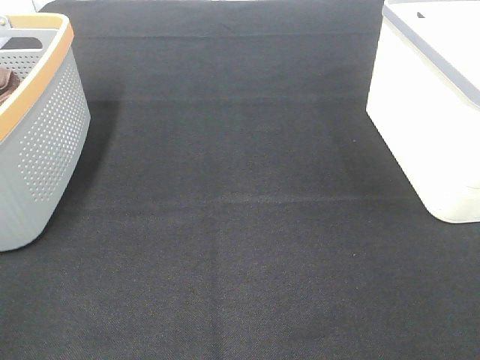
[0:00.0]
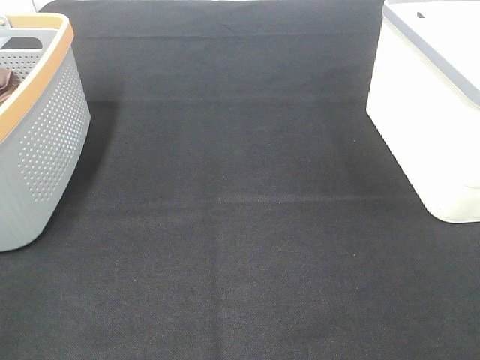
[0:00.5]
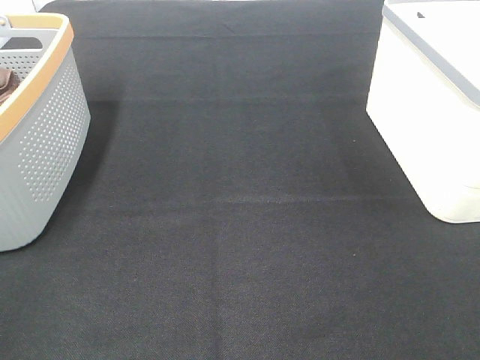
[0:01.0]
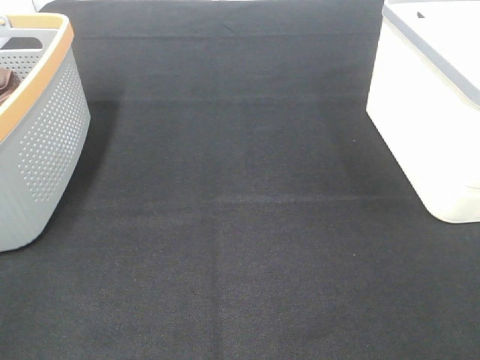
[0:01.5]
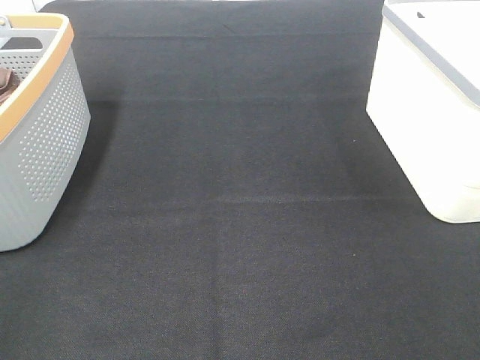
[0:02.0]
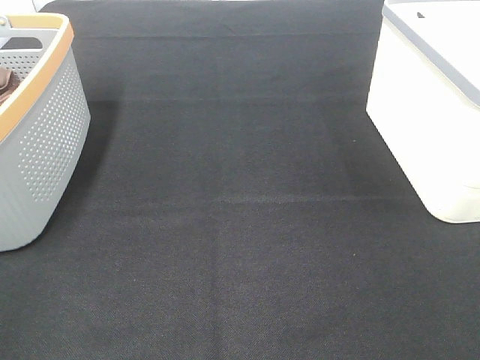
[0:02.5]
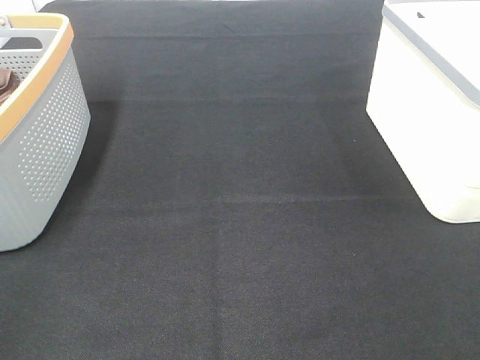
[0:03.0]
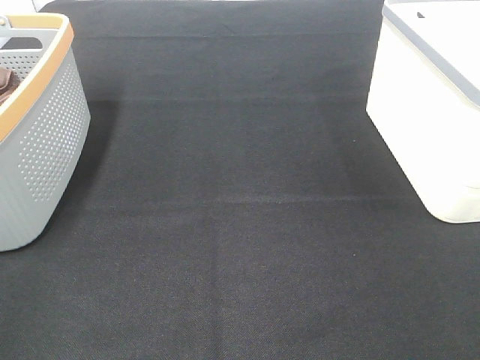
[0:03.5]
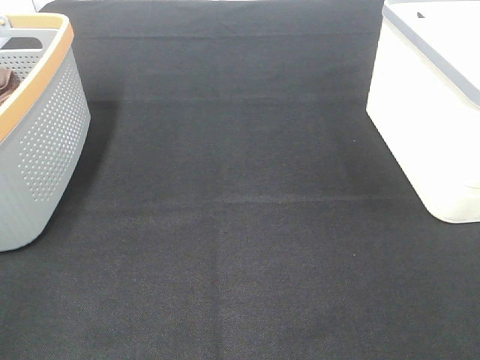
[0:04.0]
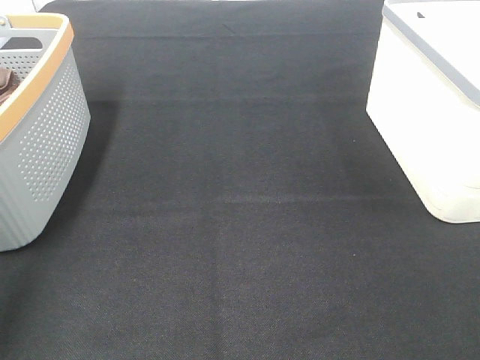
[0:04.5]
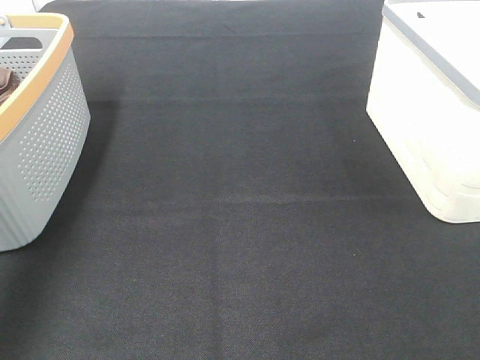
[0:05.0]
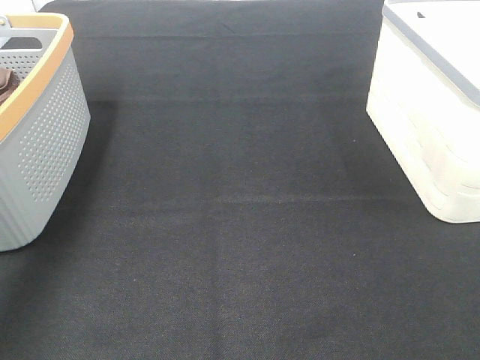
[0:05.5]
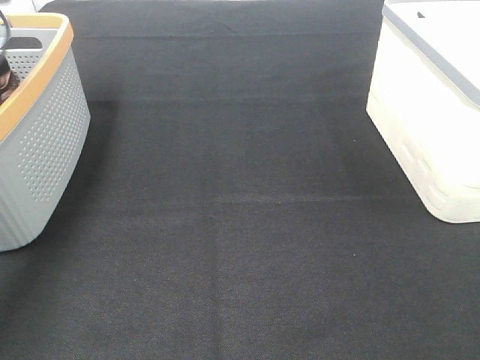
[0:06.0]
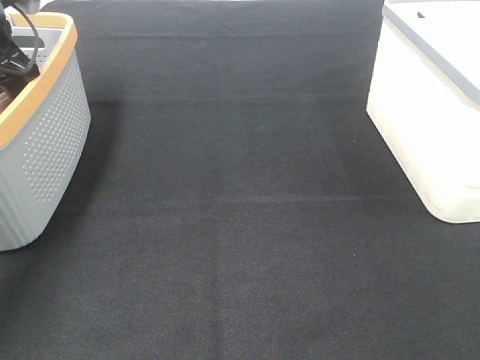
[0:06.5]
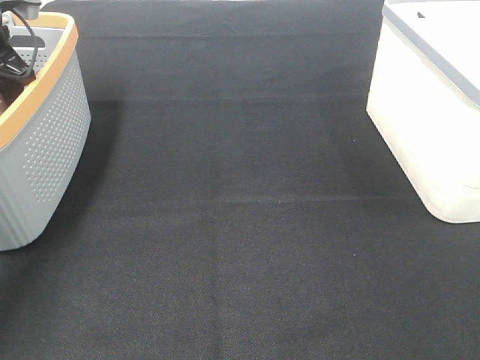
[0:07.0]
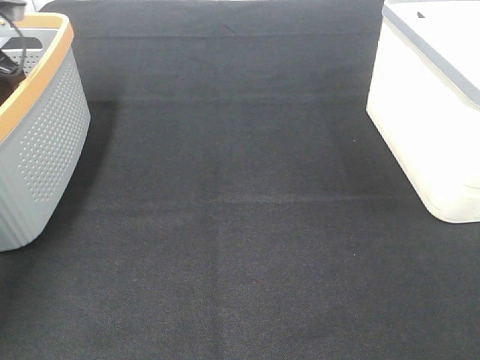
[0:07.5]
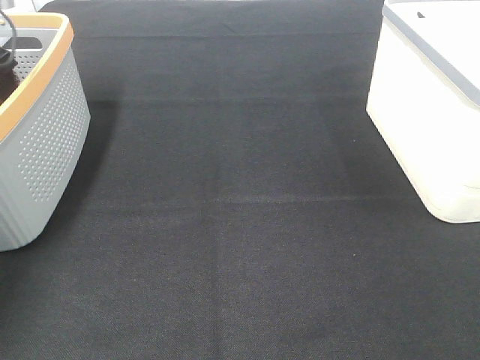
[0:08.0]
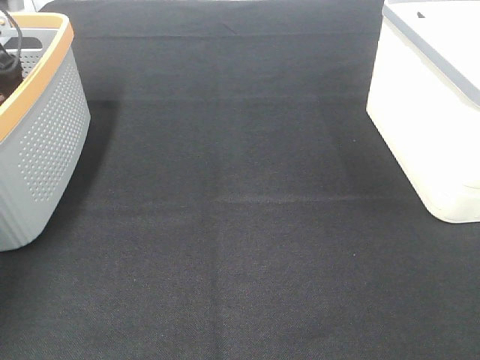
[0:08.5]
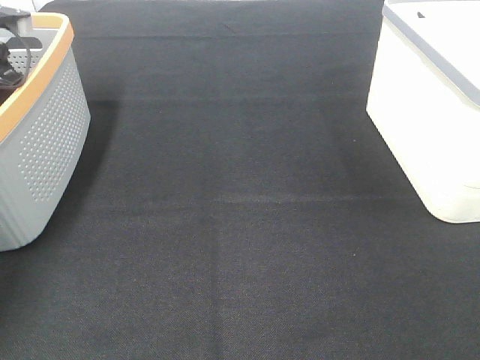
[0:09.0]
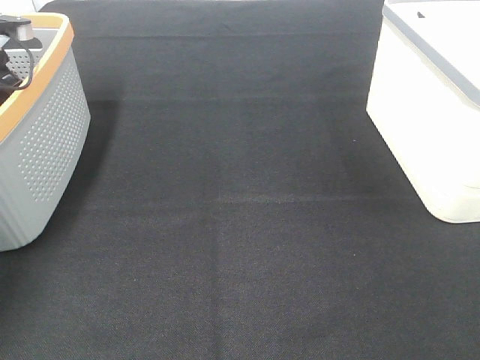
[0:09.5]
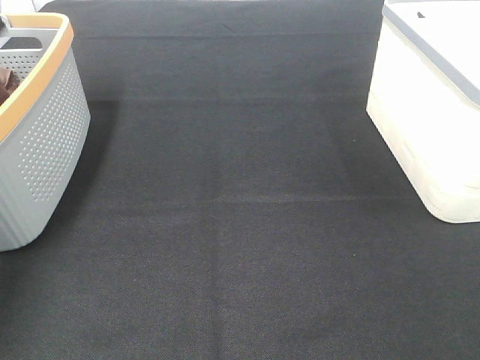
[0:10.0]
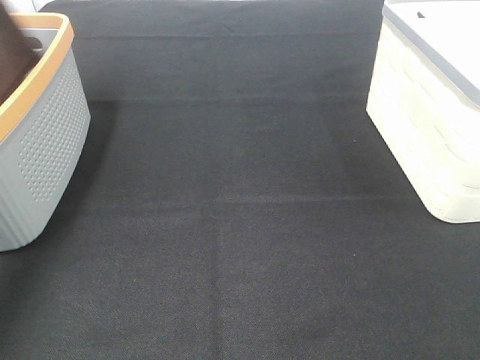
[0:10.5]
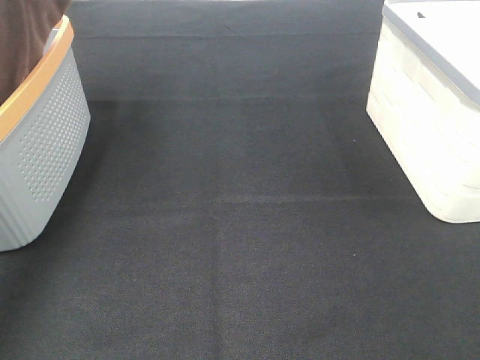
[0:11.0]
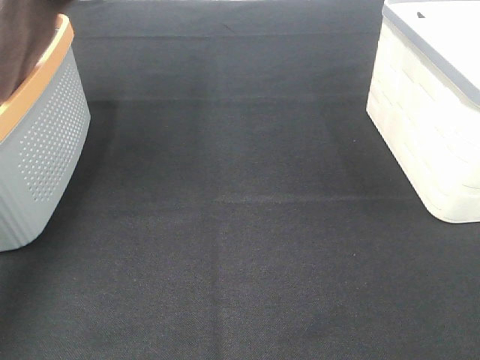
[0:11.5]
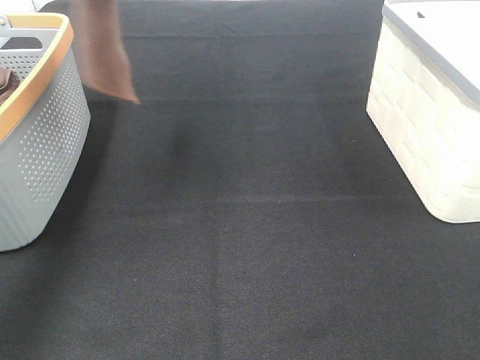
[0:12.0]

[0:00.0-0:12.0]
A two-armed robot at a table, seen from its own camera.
Task of the whole recording: Remove the towel and place it.
0:00.0 to 0:02.0: Neither gripper changes place.
0:04.0 to 0:06.0: The left gripper shifts approximately 40 cm forward.
0:10.0 to 0:12.0: The left gripper shifts approximately 30 cm upward, to the right and backward.

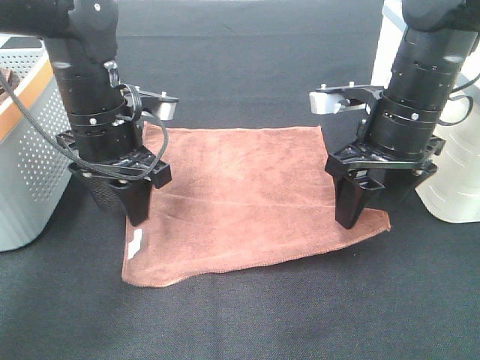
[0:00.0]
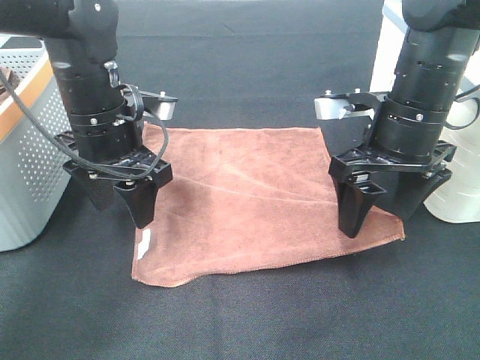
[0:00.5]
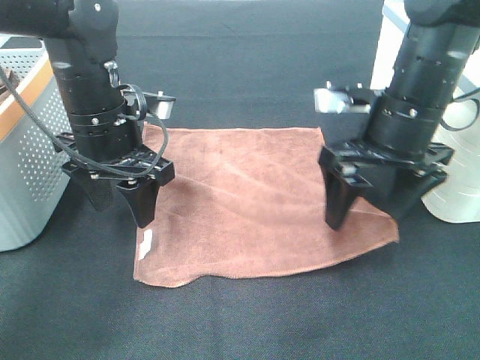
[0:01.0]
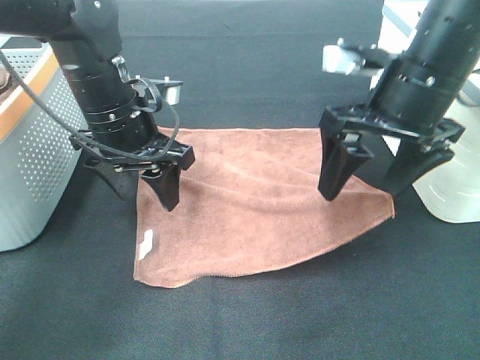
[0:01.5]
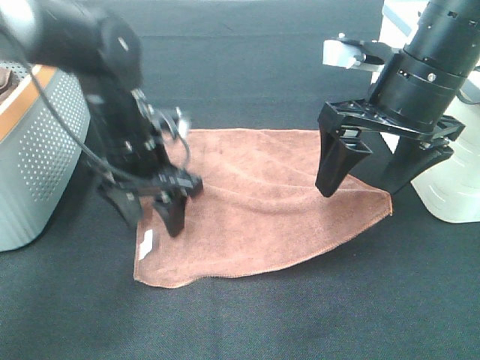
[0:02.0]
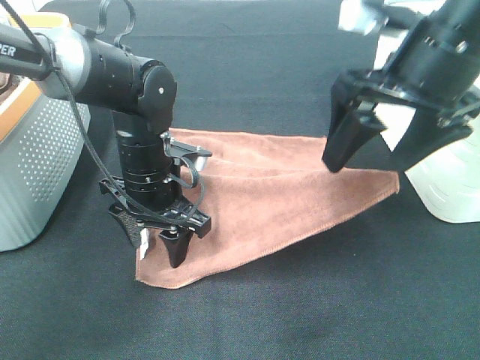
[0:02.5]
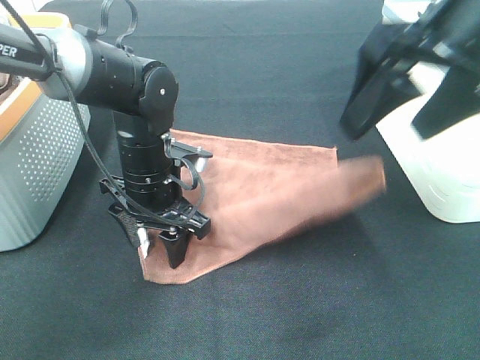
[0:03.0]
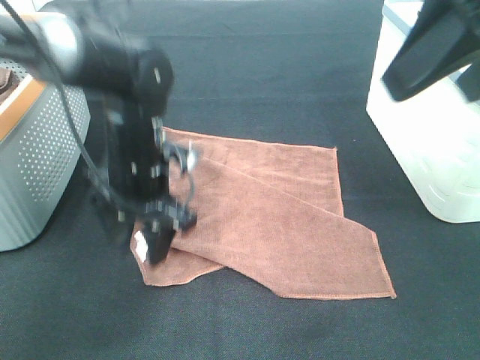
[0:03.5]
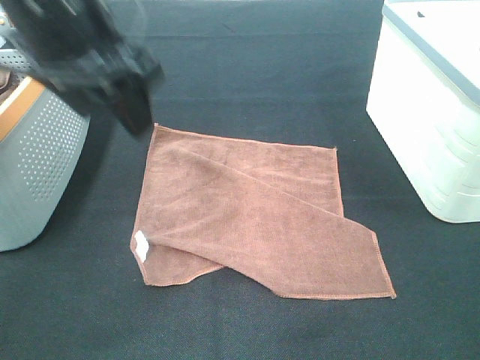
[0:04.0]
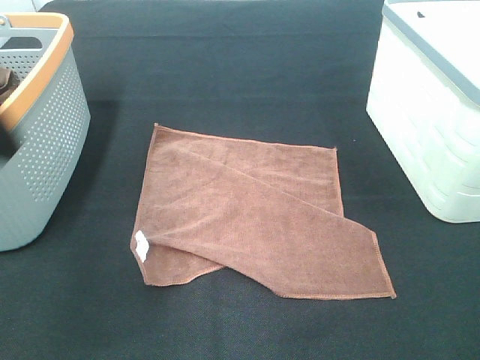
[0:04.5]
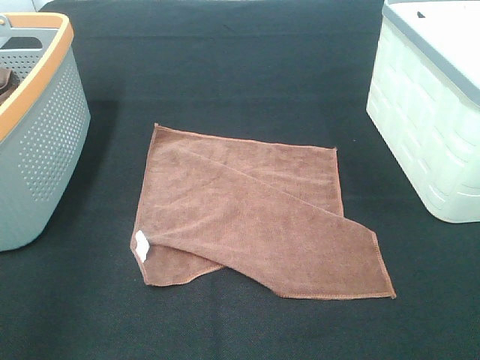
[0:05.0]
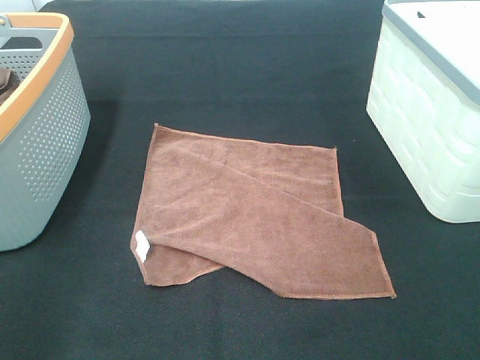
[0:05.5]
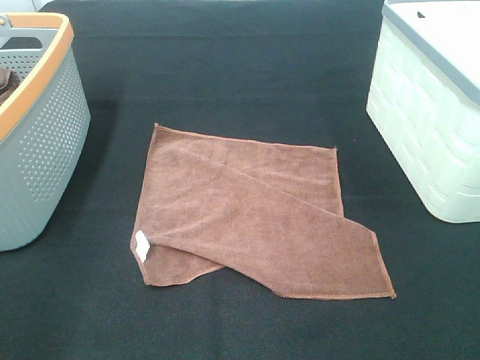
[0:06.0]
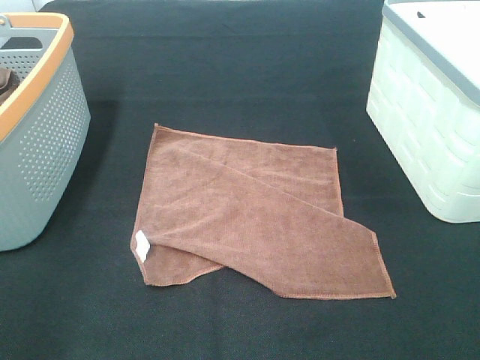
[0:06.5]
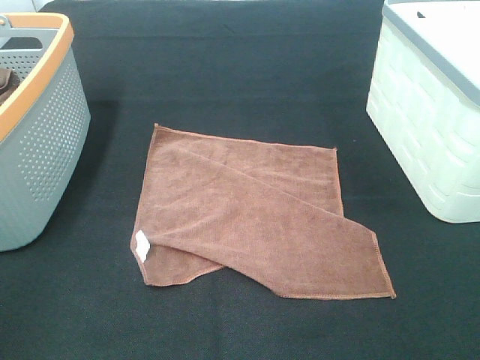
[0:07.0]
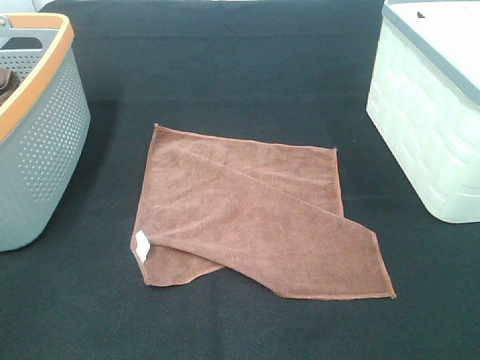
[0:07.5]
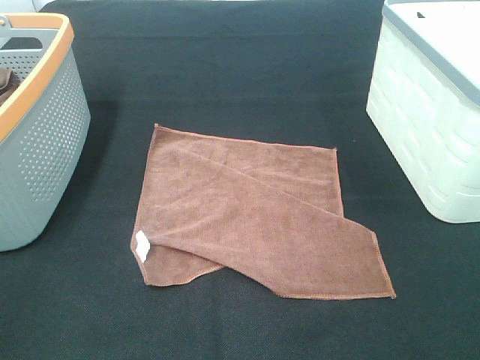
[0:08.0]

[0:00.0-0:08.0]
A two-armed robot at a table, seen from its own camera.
Task of the whole recording: Remove the towel and place it.
0:00.0 to 0:02.0: The left gripper changes place by approximately 5 cm, while the right gripper shifts by roughly 5 cm.
0:02.0 to 0:04.0: The left gripper shifts about 20 cm upward; the right gripper heads upward and backward, covering roughly 25 cm.
0:04.0 to 0:06.0: The right gripper goes approximately 15 cm downward and backward. The left gripper travels backward and to the left by some 30 cm.

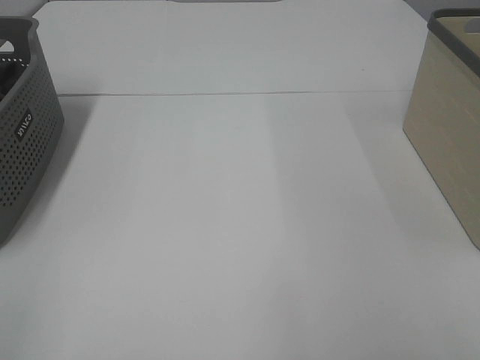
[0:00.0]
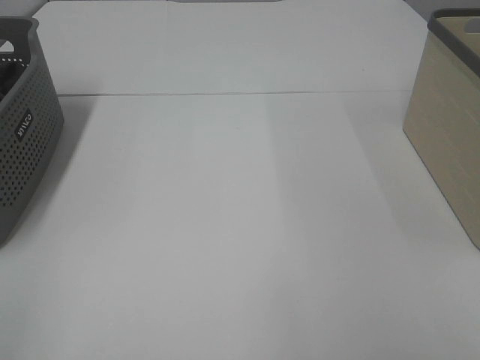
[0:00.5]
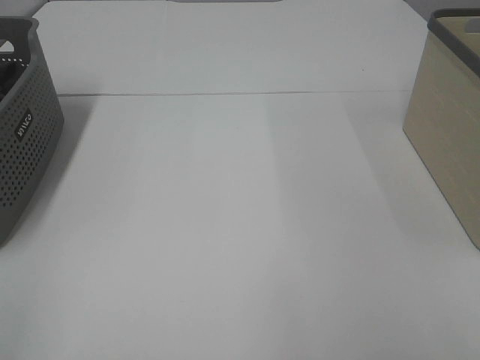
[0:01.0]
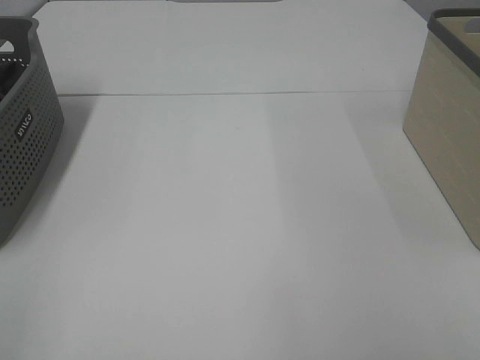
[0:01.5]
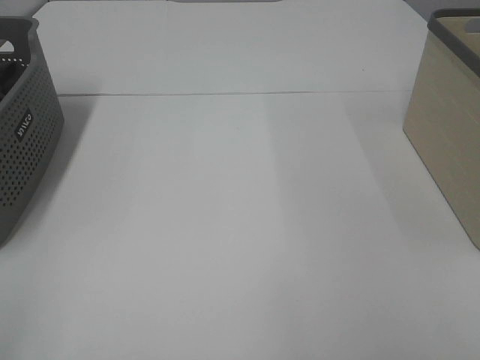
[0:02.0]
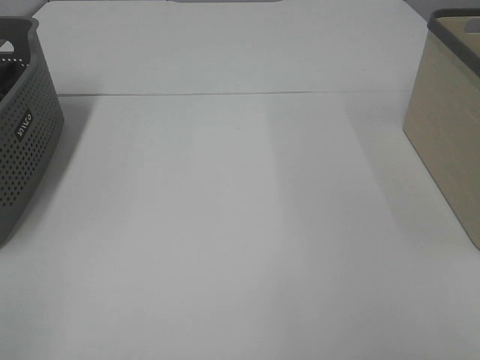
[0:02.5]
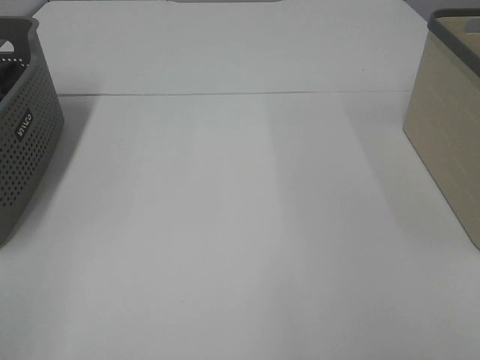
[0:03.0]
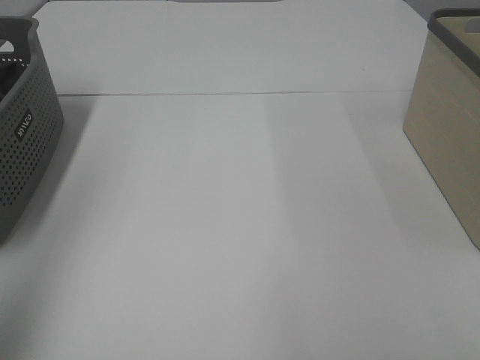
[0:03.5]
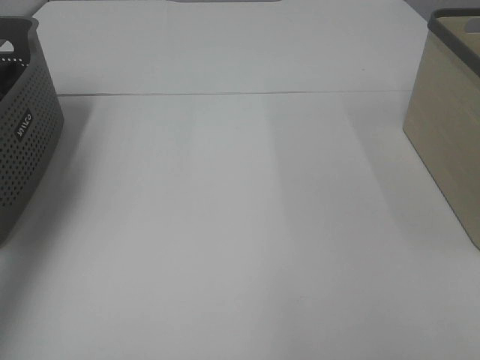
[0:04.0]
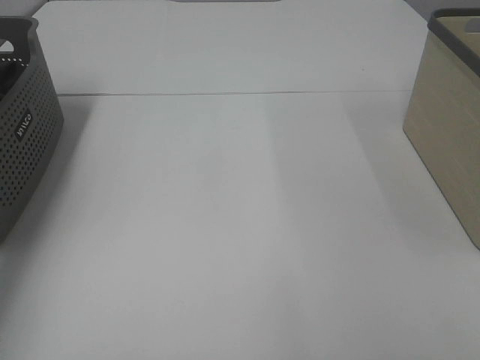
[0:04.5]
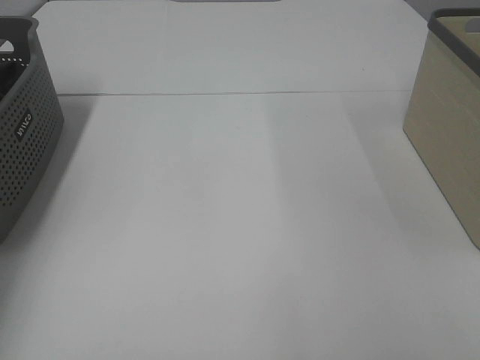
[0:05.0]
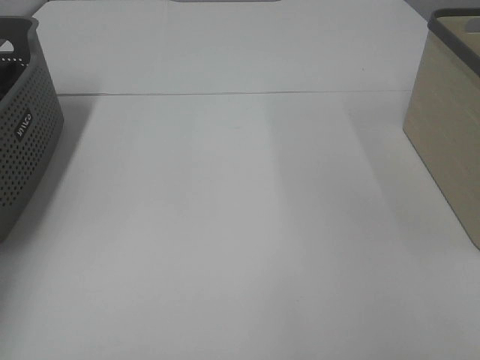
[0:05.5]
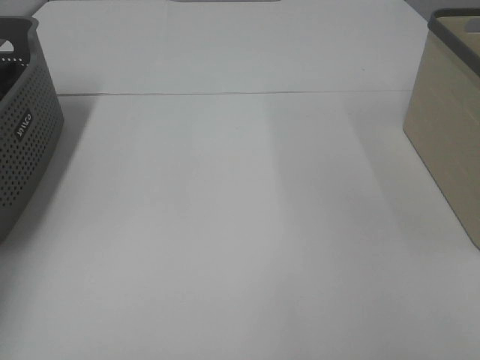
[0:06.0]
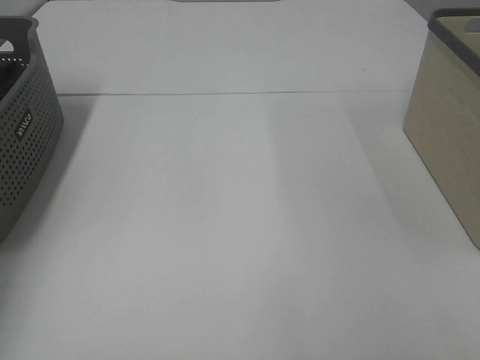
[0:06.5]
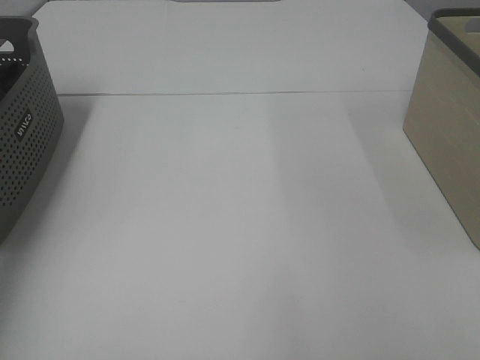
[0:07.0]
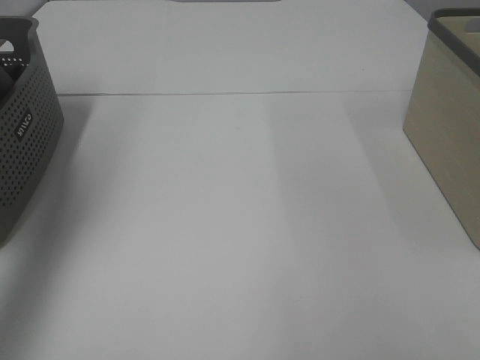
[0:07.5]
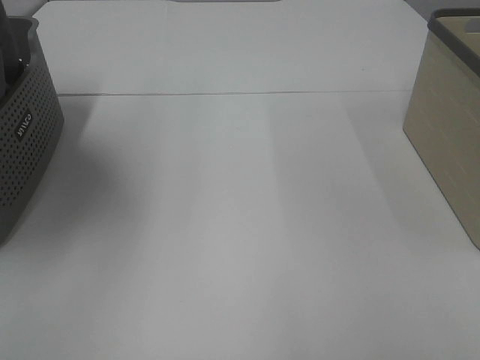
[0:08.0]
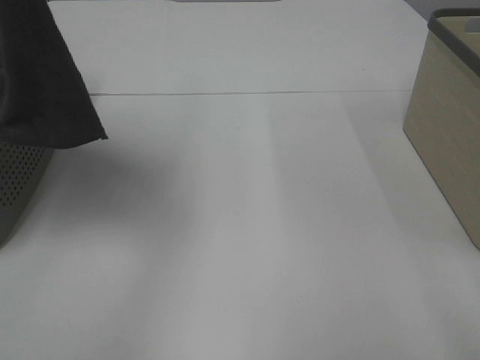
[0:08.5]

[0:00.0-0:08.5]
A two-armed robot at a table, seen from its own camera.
Task of the whole recording: Remove the towel and place it.
0:00.0 to 0:02.0: The two grippers keep their place.
0:02.0 to 0:04.0: The left gripper goes roughly 35 cm forward.
0:04.0 to 0:06.5: The left gripper moves downward and forward, approximately 15 cm, and closes its fingers.
0:06.5 to 0:08.5: The left gripper goes about 40 cm upward, to the right and backward; the right gripper shifts approximately 10 cm forward.
